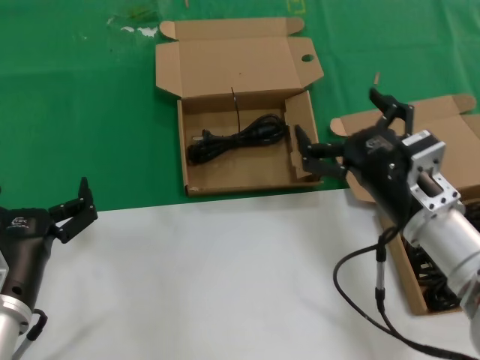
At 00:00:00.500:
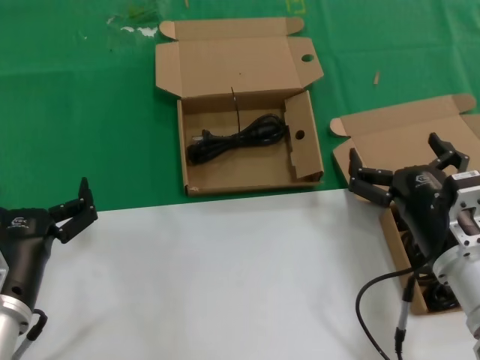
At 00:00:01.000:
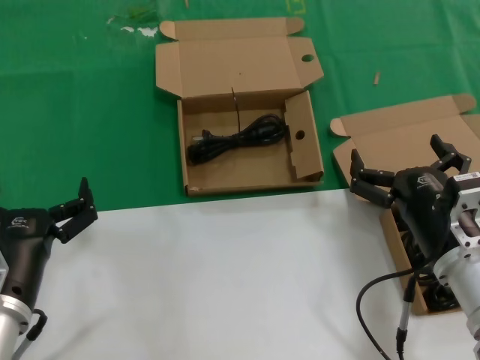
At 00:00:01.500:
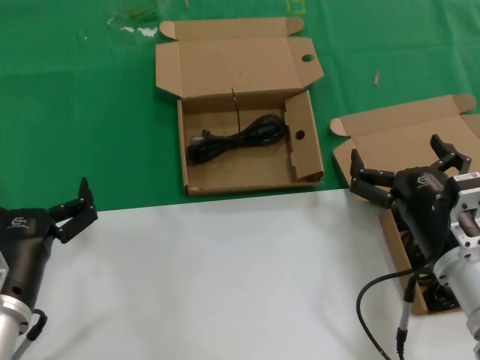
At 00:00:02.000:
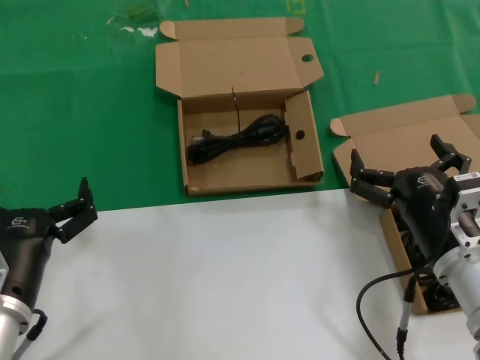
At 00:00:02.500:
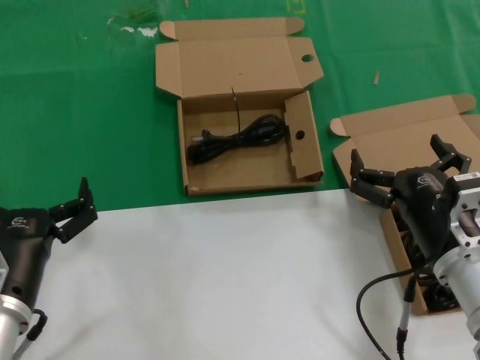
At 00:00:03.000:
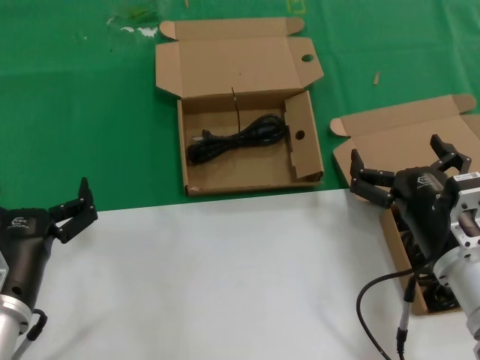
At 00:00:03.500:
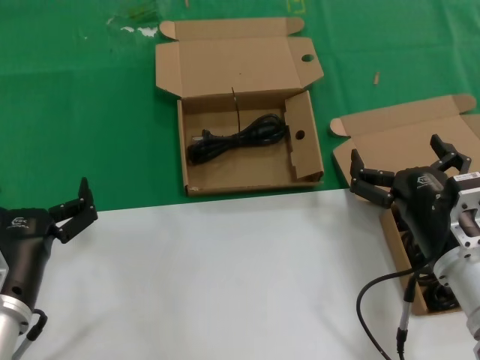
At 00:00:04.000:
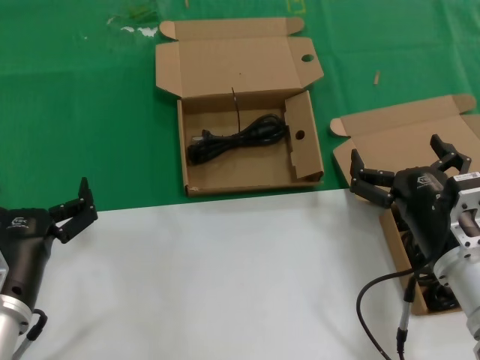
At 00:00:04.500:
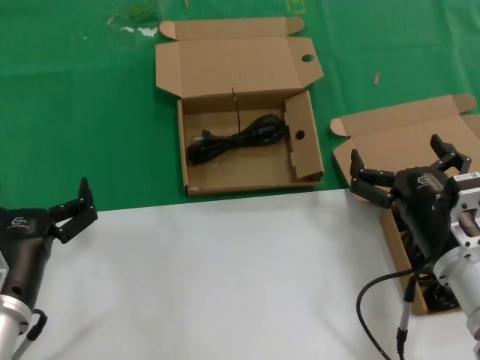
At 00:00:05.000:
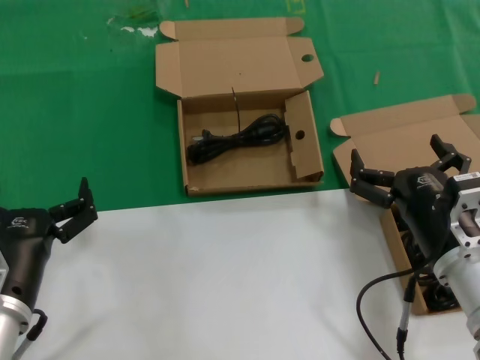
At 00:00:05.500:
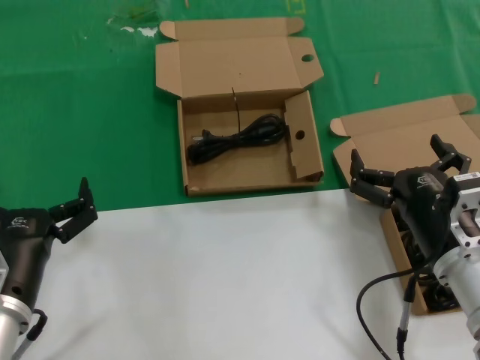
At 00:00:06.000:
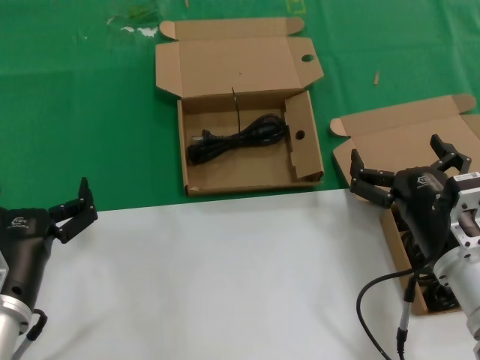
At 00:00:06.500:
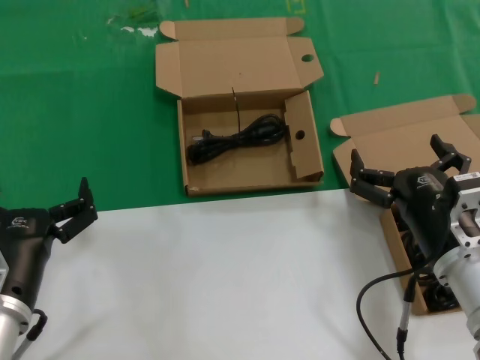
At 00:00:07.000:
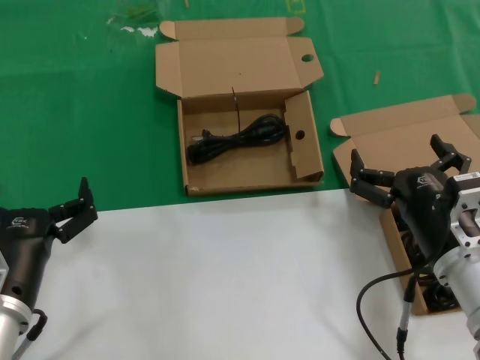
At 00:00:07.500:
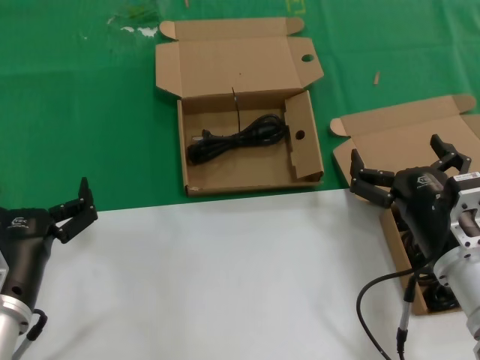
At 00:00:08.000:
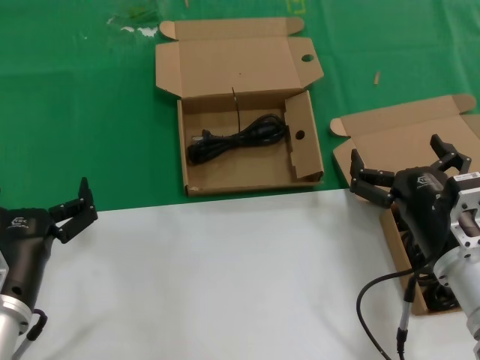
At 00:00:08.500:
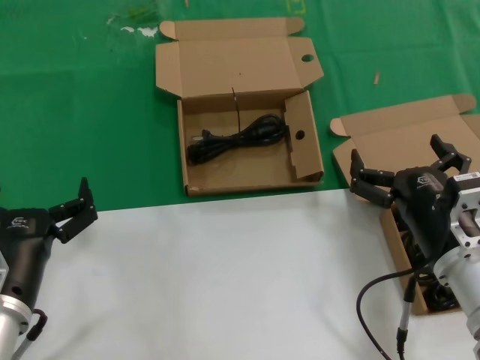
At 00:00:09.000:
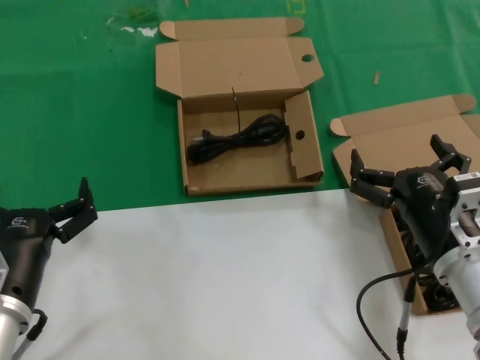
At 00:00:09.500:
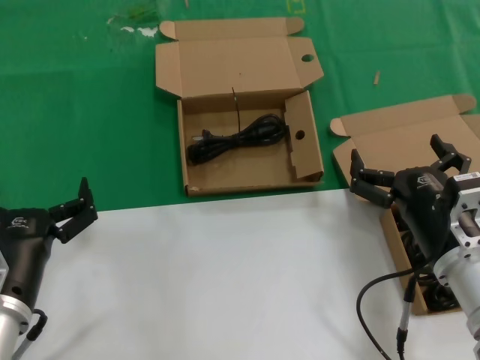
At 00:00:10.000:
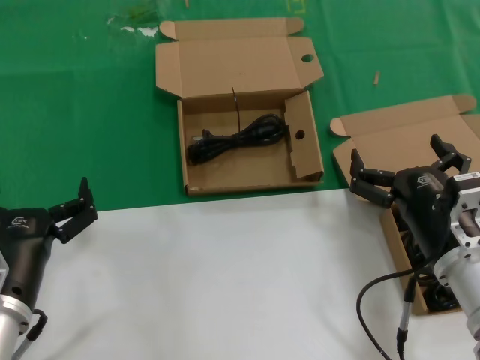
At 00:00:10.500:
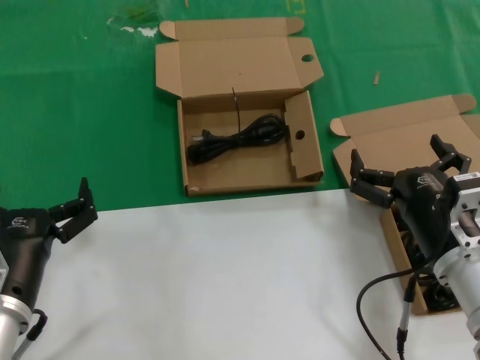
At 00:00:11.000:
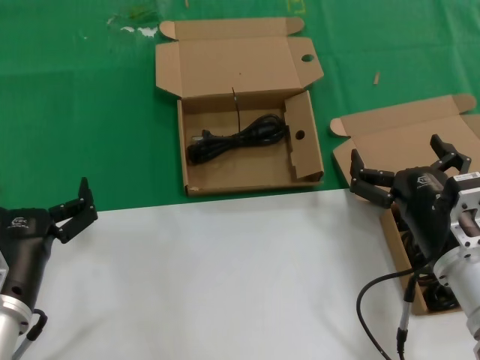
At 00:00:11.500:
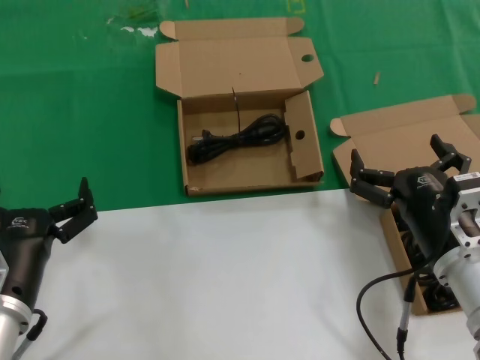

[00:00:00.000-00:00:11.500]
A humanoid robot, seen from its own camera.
Task of the whole recording: take the parts from the box containing them and put them into an empty box.
00:00:00.000 to 00:00:02.000: The right hand moves approximately 5 cm.
00:00:02.000 to 00:00:11.500: Both hands stay about where they are.
